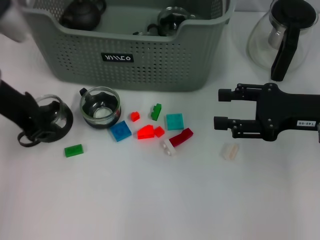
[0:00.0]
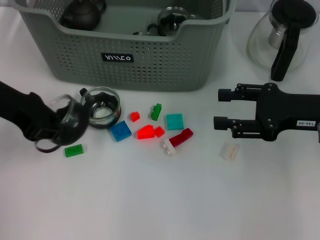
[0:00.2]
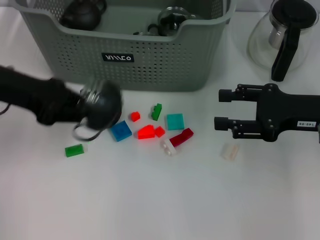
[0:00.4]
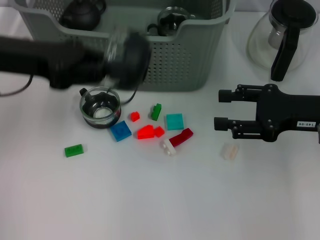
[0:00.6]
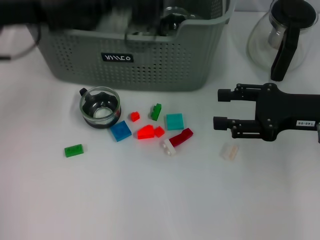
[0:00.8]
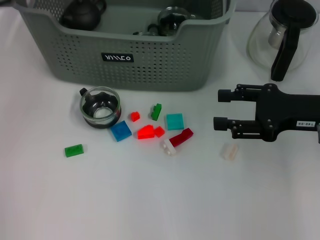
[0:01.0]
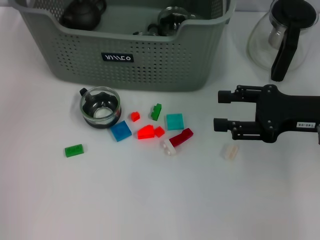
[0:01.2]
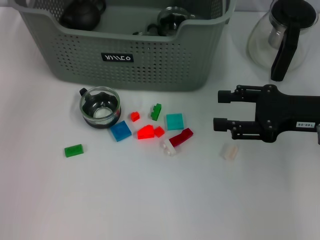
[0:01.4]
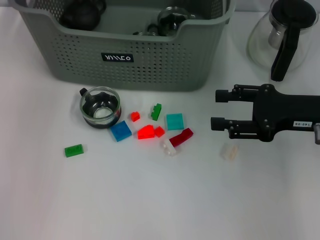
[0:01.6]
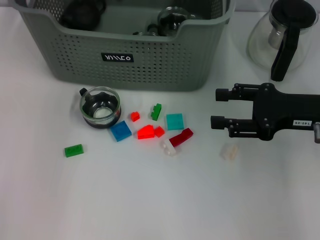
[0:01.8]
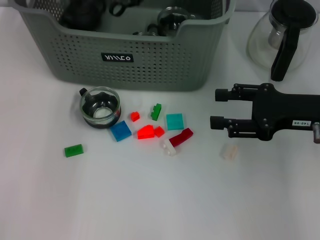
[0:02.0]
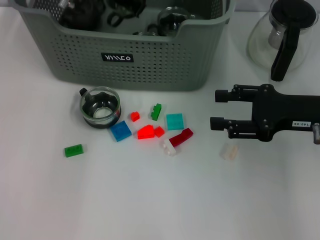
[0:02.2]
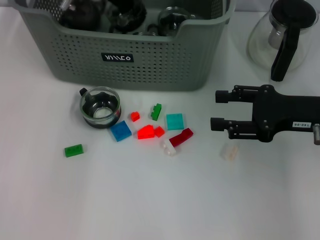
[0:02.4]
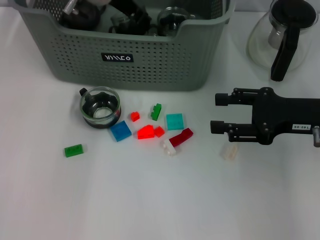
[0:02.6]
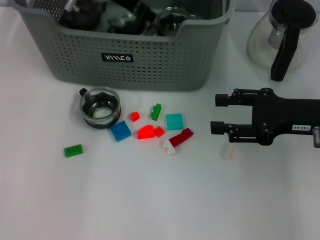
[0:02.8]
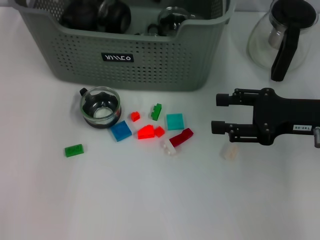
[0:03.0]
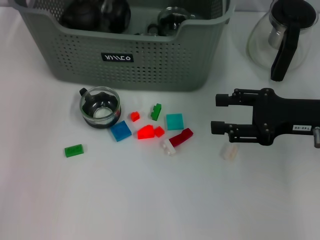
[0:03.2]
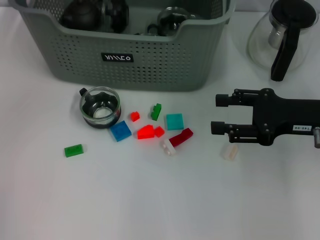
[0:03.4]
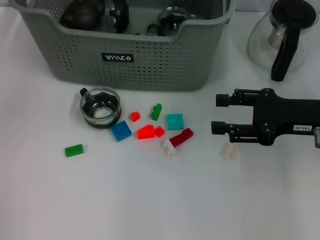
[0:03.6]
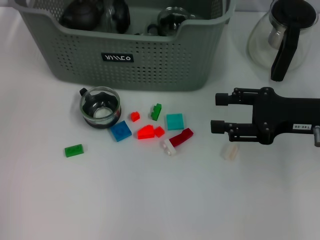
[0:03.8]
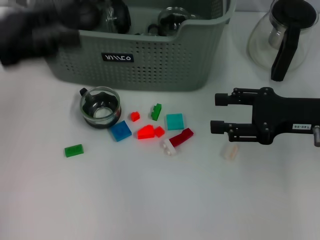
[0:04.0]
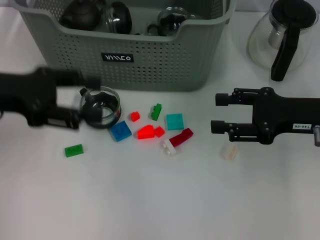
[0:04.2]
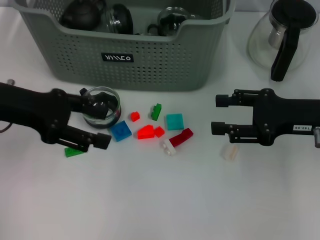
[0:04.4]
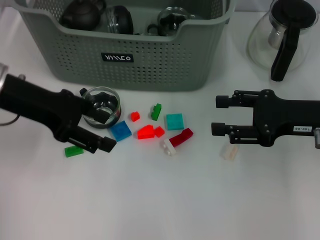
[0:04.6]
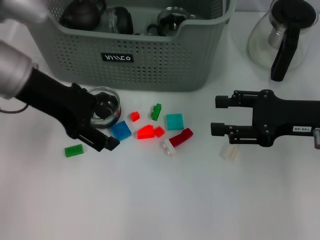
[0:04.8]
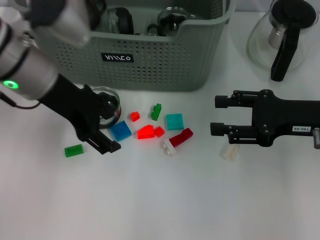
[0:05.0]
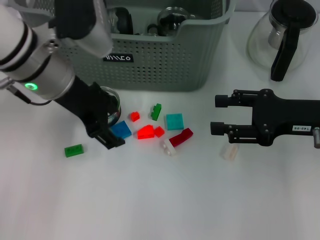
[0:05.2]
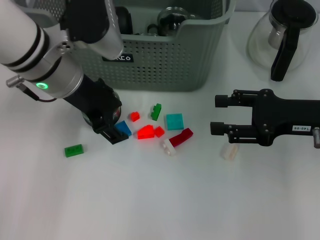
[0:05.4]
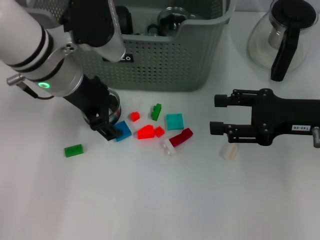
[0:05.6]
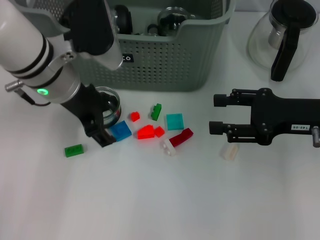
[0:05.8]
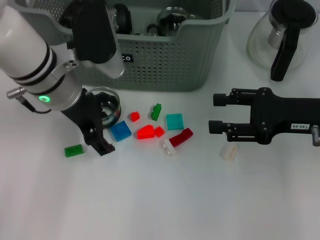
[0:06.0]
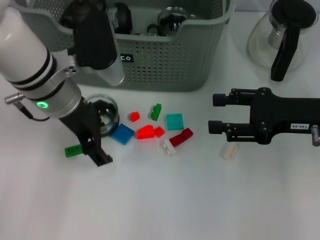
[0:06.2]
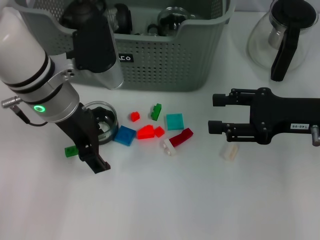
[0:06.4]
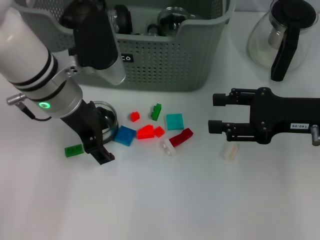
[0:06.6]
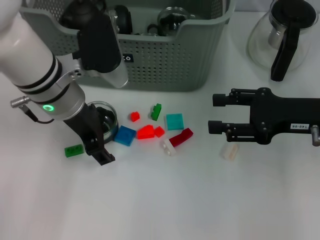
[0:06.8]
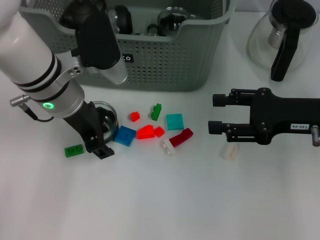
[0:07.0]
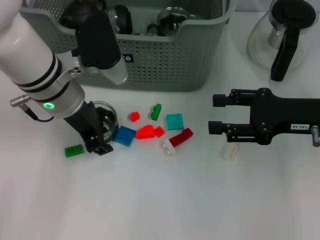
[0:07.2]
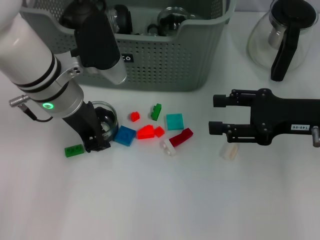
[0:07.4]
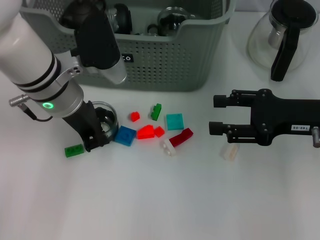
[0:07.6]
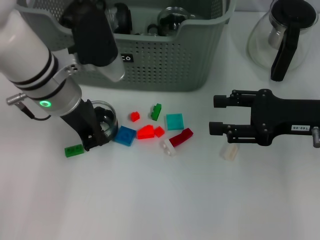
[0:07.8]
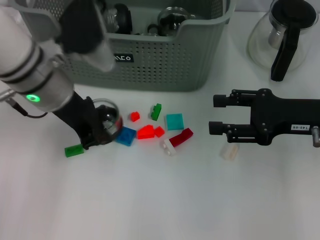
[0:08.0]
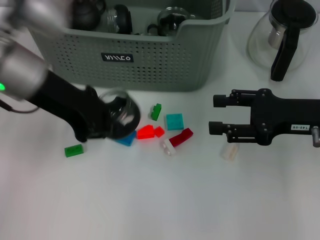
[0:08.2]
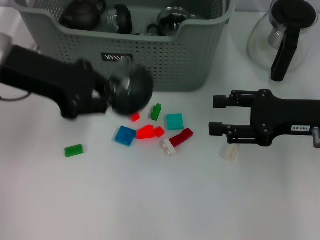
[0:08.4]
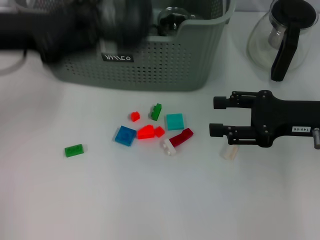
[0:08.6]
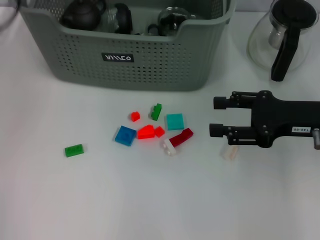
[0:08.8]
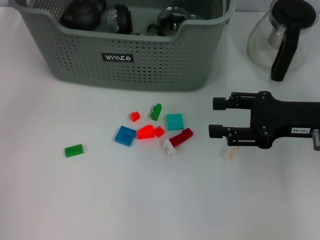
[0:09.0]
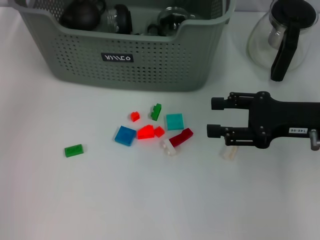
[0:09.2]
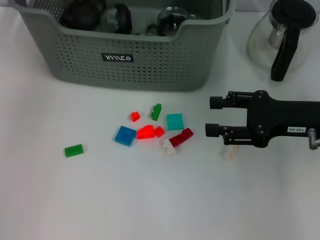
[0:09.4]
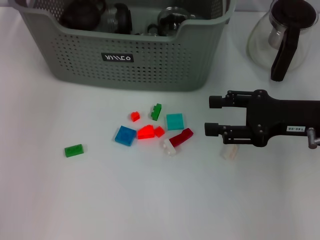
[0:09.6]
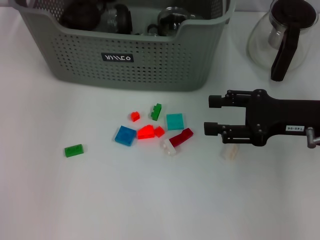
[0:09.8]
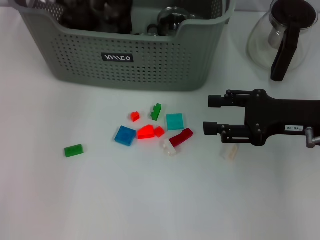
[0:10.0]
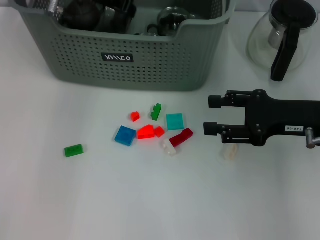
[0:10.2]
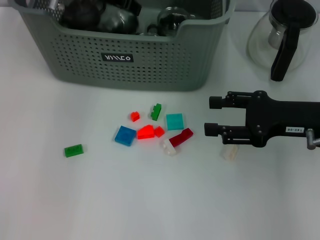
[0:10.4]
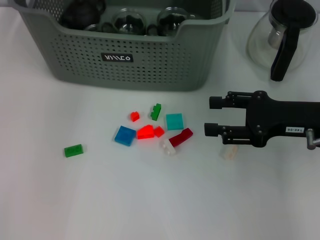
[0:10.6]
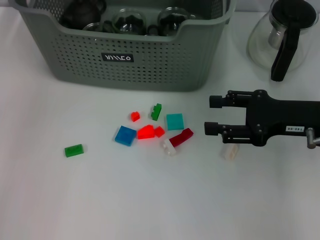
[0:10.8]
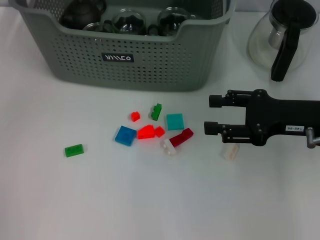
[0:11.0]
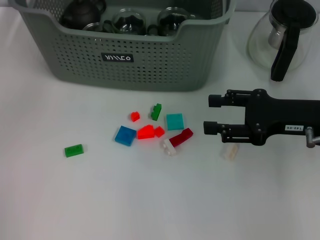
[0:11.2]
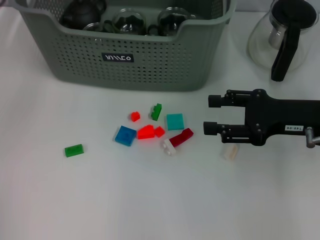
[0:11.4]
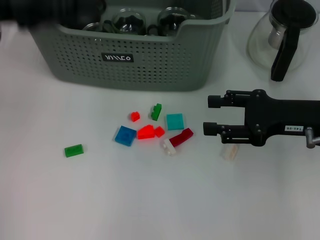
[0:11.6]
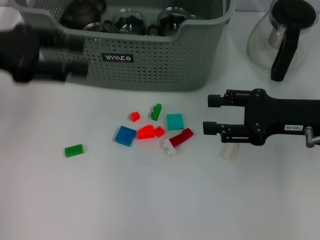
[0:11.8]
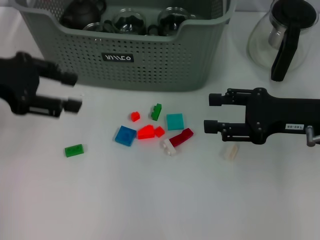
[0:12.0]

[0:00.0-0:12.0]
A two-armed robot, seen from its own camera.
Task of the whole recording: pick up the teacup on the table and place it into the storage bin, pick up the block on the table and place it into the storage bin.
Step, 0:00.0 to 0:03.2: Place the cup in the storage box with left gripper.
Step, 0:03.4 to 0:07.6: Grasp the cup with left gripper.
Step, 0:07.8 to 0:10.4: Place the cup in the storage box with left gripper.
0:00.0 to 0:01.6: The left gripper goes some 20 cm forward, upward and to the right.
0:01.6 to 0:03.0: The left gripper opens its fingers.
0:03.0 to 0:04.4: The left gripper is displaced backward and to the left by roughly 20 cm.
0:04.4 to 0:06.0: The left gripper heads to the right, covering some 10 cm.
0:06.0 to 0:07.6: The left gripper closes its fingers.
0:07.6 to 0:09.0: The left gripper is displaced upward and to the left by about 15 cm.
0:09.0 to 0:10.4: The left gripper goes about 10 cm forward and to the right.
0:10.4 to 0:12.0: The left gripper travels backward and to the left by roughly 25 cm, and opens its fingers.

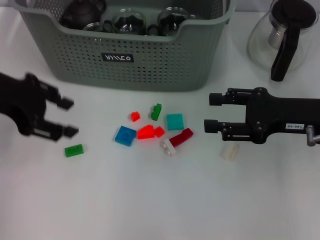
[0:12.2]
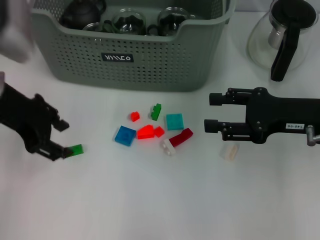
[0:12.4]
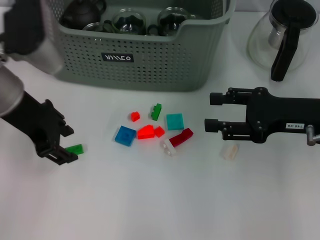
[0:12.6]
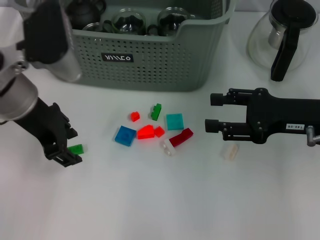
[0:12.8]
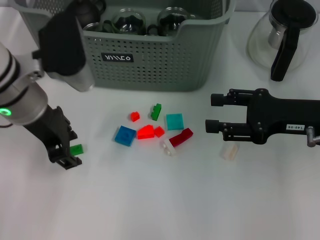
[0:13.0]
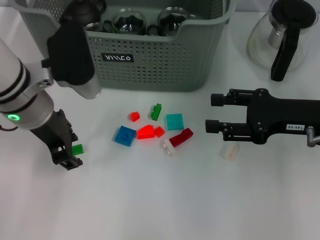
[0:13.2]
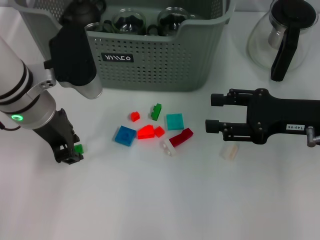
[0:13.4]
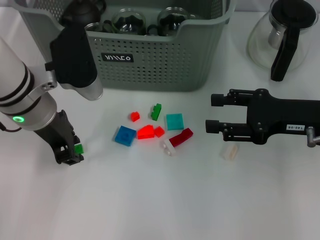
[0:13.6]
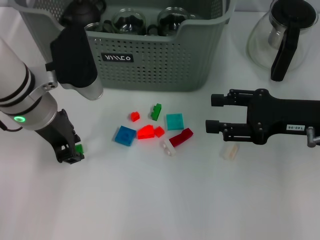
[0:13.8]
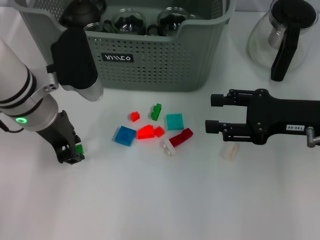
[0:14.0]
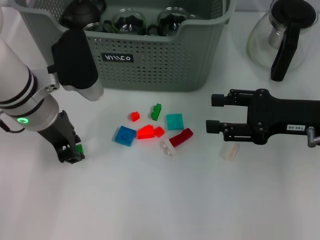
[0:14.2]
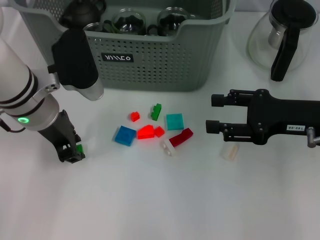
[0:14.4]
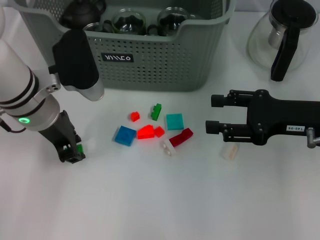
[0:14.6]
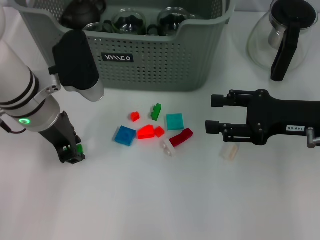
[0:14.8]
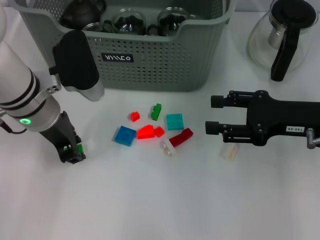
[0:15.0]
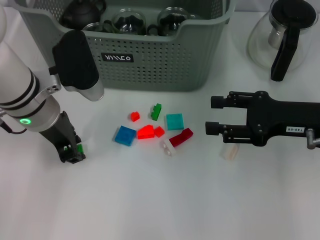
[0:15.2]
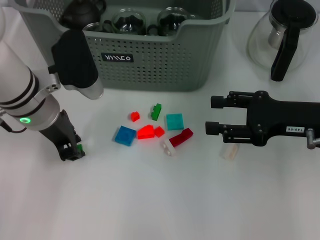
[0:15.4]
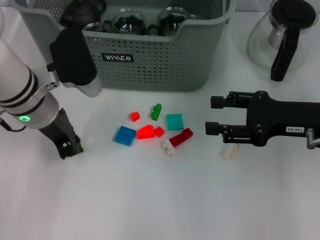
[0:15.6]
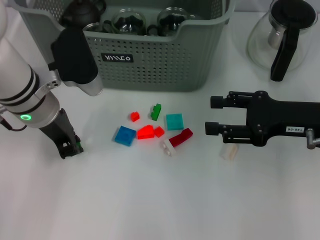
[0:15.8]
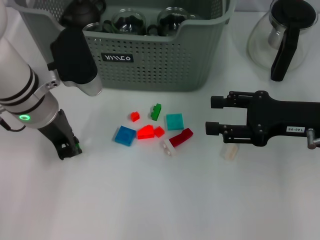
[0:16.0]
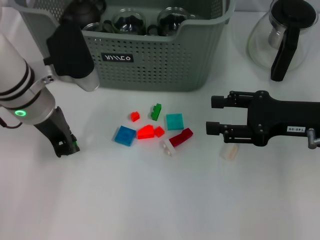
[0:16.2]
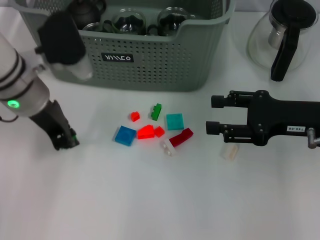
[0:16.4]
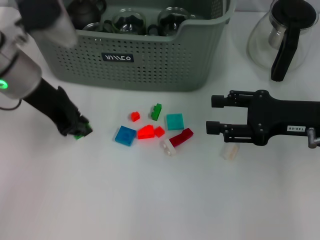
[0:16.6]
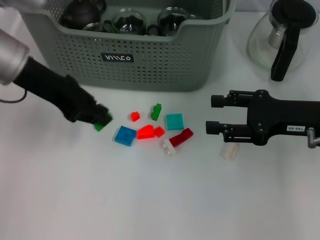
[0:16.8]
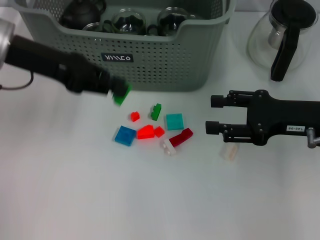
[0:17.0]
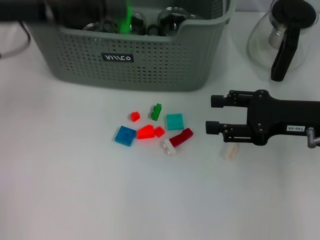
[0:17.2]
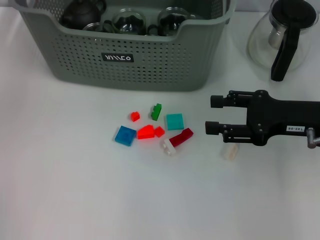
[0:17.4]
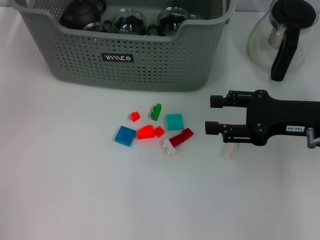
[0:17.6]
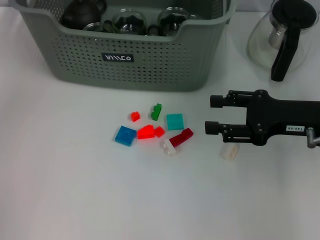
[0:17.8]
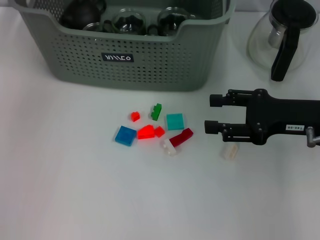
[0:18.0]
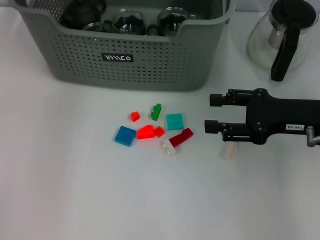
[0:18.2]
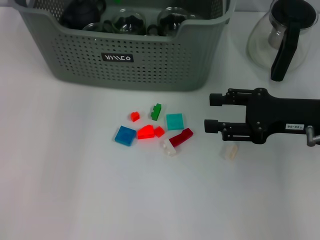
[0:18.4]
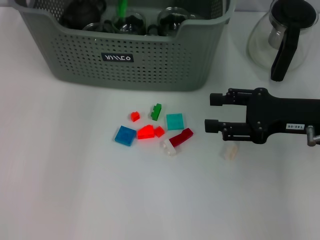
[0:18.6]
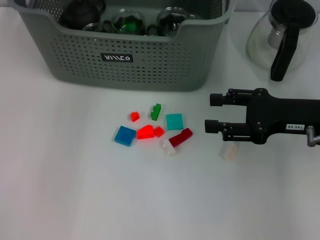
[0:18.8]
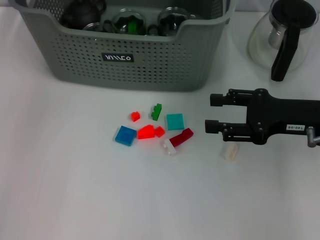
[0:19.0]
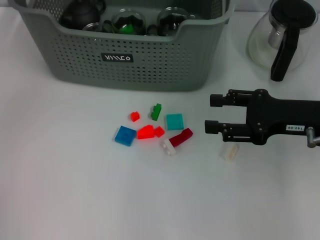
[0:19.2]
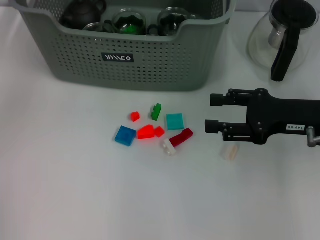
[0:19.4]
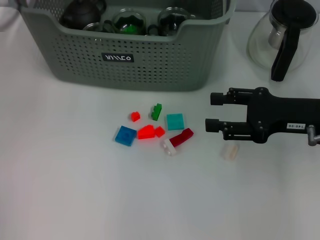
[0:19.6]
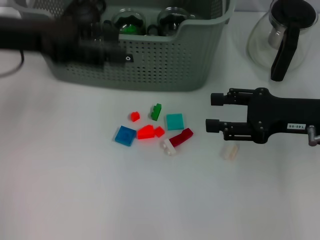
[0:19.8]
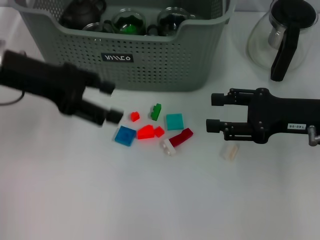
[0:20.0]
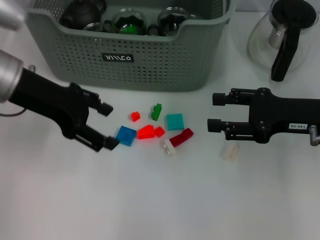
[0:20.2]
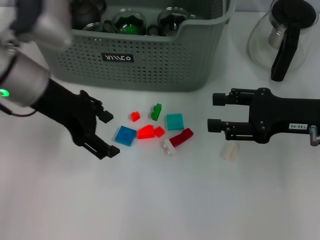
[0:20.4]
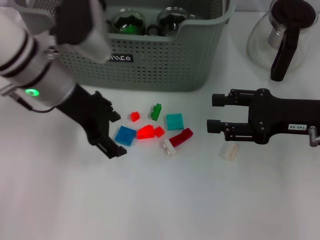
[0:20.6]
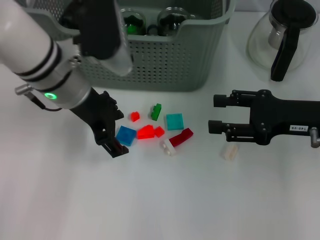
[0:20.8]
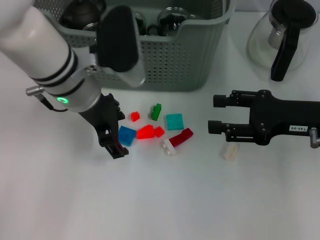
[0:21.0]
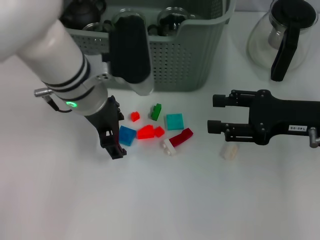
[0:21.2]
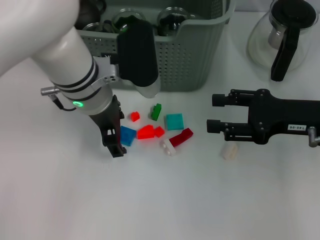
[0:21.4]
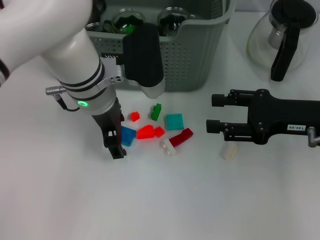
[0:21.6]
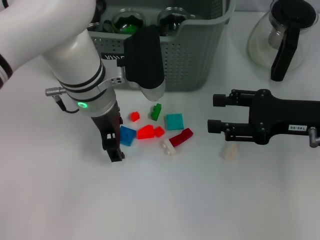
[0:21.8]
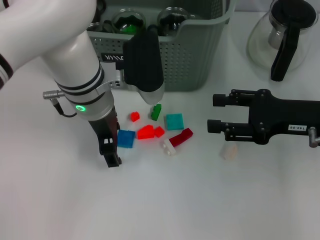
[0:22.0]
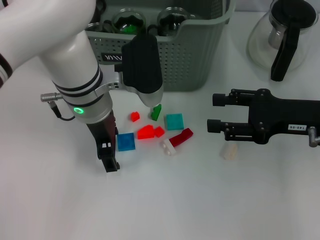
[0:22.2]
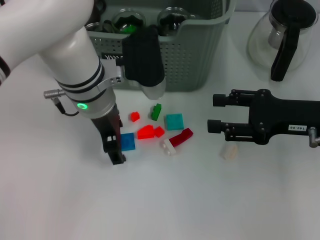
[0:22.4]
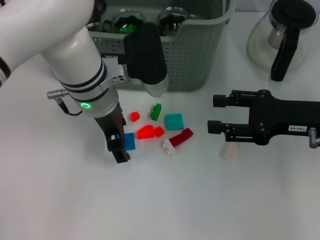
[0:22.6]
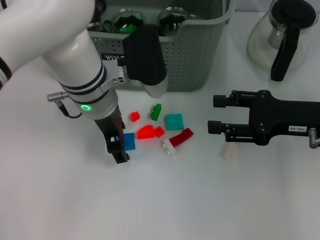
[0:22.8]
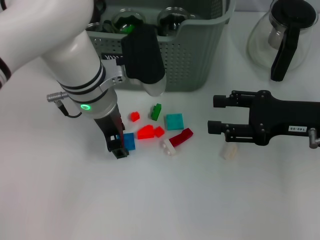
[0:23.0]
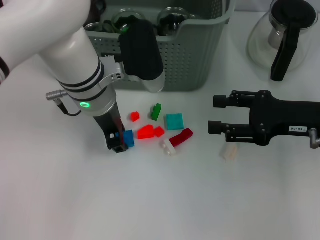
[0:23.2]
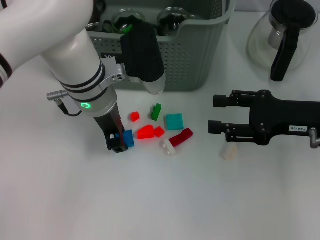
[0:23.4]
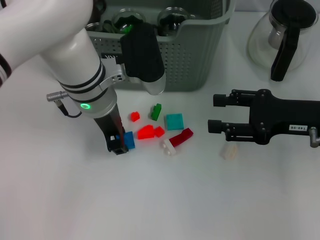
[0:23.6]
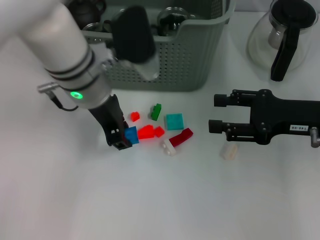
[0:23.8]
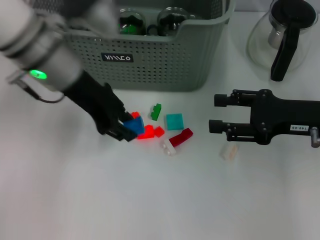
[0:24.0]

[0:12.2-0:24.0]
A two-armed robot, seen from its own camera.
Task of the whole recording: pick up the teacup on the table and place it into the storage bin, pick up the block on the table and place it into the storage bin.
Step, 0:12.2 to 0:15.8: Grasp the green block with left gripper.
Step, 0:16.0 to 0:18.8: Place the green block in the storage box with left gripper.
Step, 0:19.2 to 0:23.4: Grasp the dark blue block with left gripper.
0:12.2 to 0:13.6: The left gripper heads to the right and downward, covering some 10 cm.
0:13.6 to 0:15.2: There are only small adjustments of the grippers.
0:15.2 to 0:16.6: The left gripper moves roughly 5 cm.
0:16.6 to 0:18.2: The left gripper heads forward and upward, covering some 15 cm.
0:19.6 to 0:21.0: The left gripper moves to the right and downward, about 15 cm.
0:21.0 to 0:22.6: The grippers move only a little.
0:22.6 to 0:24.0: The left gripper travels to the left by approximately 5 cm, and closes up.
